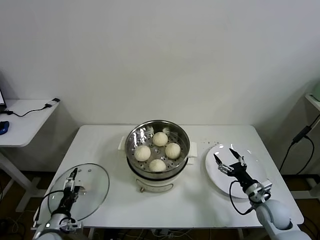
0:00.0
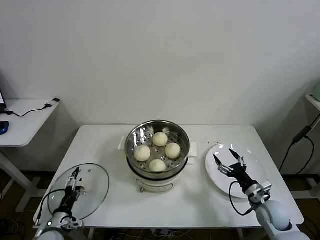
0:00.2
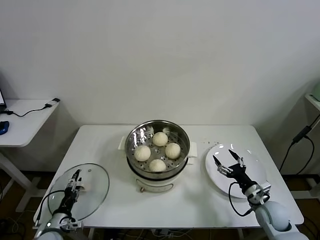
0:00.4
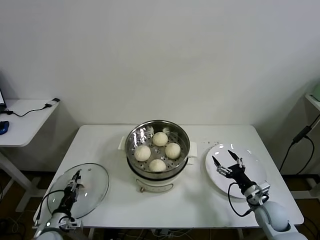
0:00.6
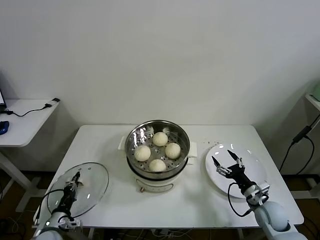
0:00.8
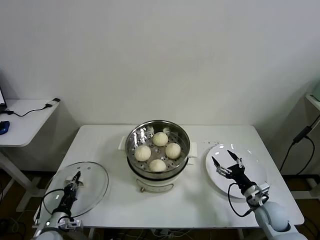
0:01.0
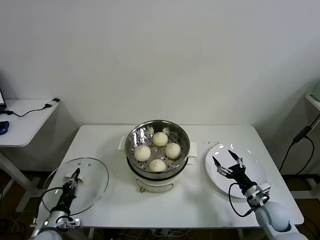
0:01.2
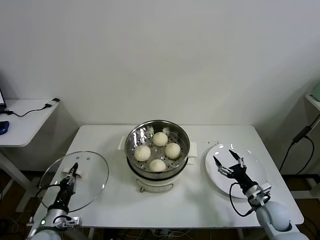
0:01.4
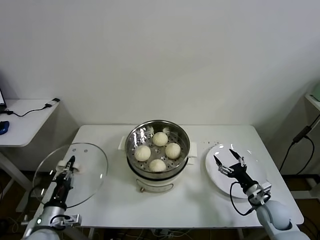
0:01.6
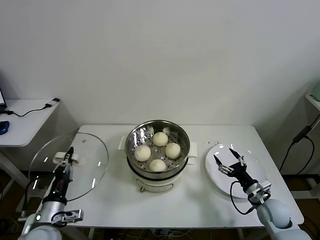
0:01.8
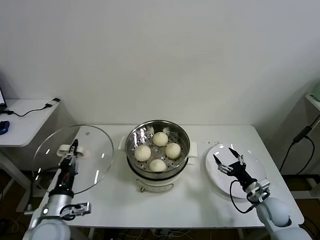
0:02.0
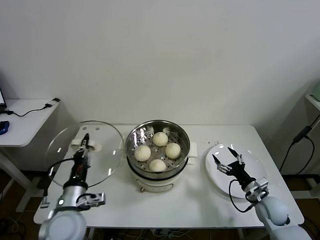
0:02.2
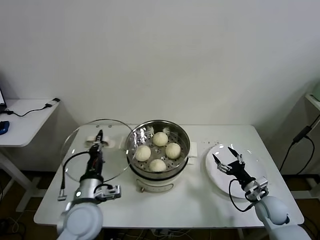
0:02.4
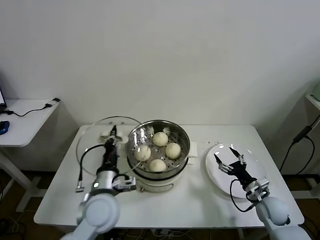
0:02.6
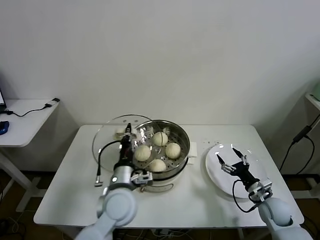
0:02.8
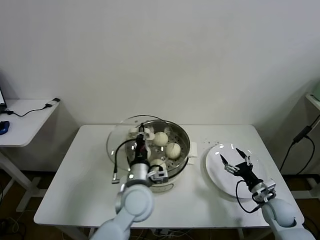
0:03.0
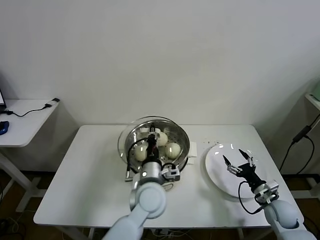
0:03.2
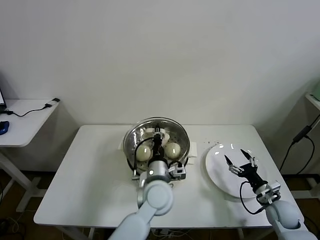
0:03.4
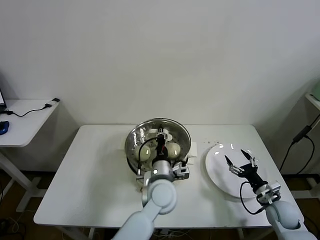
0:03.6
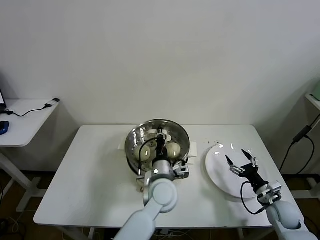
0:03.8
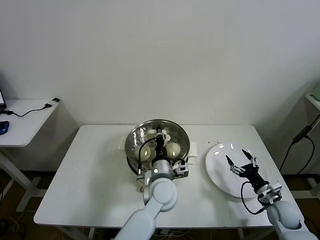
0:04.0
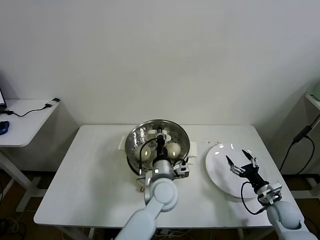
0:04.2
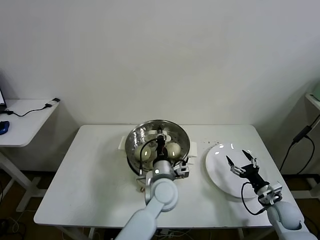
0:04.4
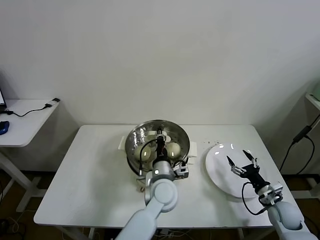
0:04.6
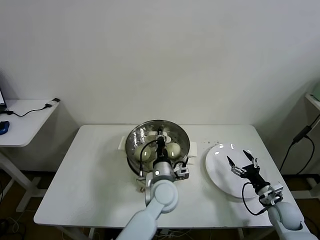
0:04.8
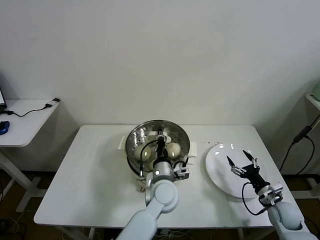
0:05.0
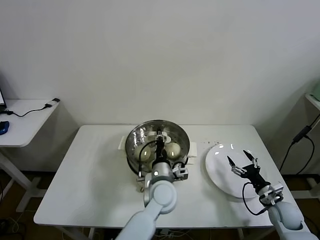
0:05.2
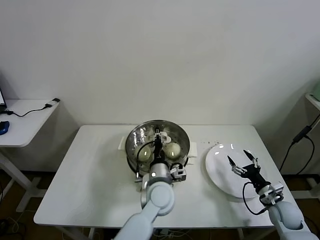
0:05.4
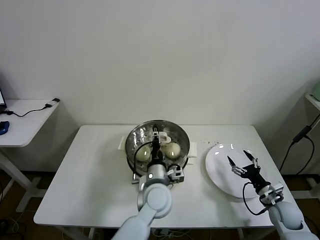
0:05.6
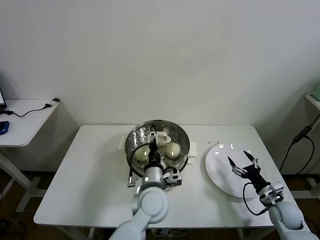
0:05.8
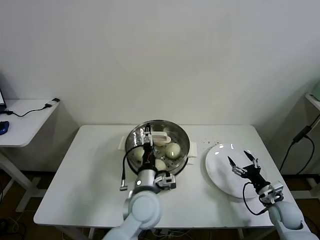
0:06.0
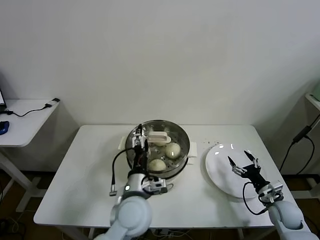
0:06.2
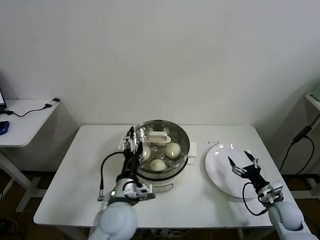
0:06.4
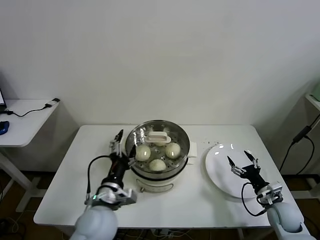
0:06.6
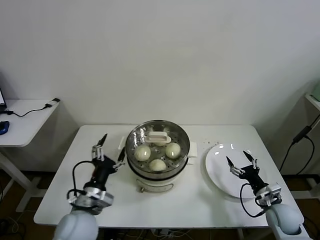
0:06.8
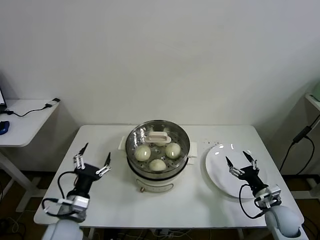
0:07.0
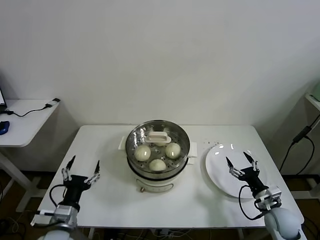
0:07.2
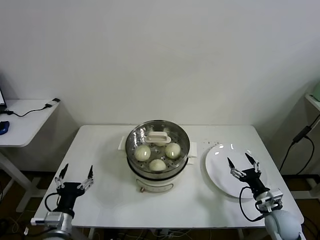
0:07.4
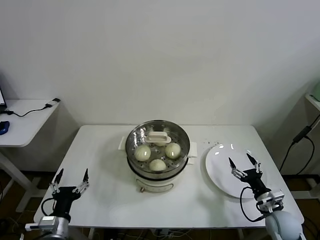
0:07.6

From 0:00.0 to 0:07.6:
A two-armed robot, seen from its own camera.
Task of the whole recording: take steamed baozi put them in steamer then cover it.
Step, from 0:01.0 to 0:05.8: Place the pot lid on the steamer with left gripper.
From 0:00.0 to 0:01.6: The left gripper moves upward, about 10 cm, and closes up.
From 0:01.6 to 0:03.0: The left gripper shifts some 25 cm to the right.
From 0:03.0 to 0:04.6: The left gripper shifts some 10 cm to the right.
From 0:04.6 to 0:06.0: The left gripper changes place by approximately 5 cm, and opens its fingers.
From 0:06.0 to 0:07.6: The right gripper moves approximately 5 cm, while the left gripper travels to the left and backward by some 30 cm.
